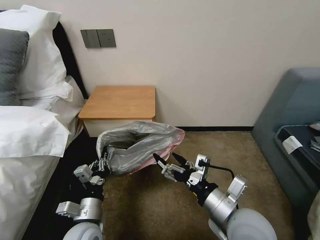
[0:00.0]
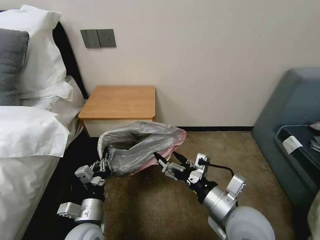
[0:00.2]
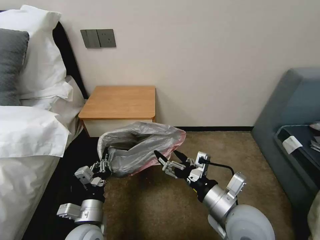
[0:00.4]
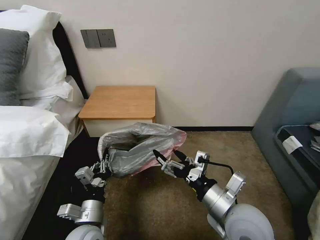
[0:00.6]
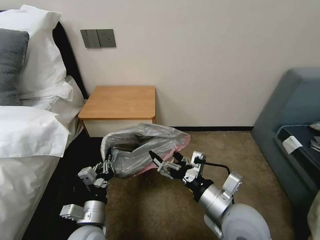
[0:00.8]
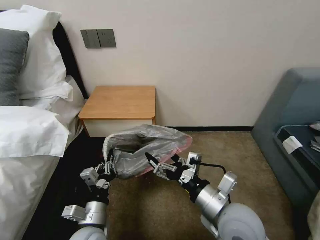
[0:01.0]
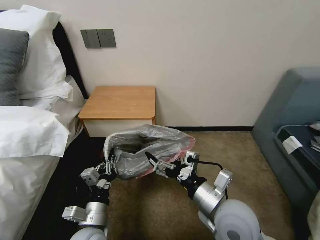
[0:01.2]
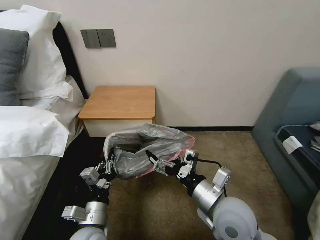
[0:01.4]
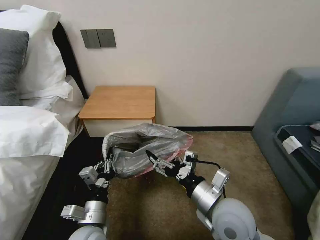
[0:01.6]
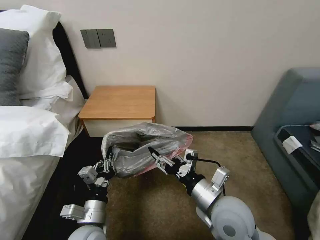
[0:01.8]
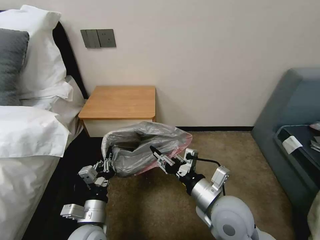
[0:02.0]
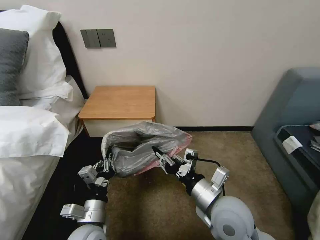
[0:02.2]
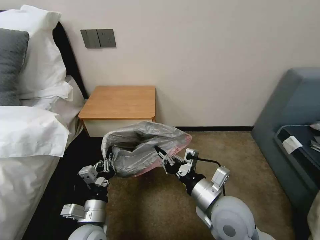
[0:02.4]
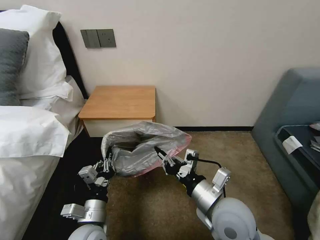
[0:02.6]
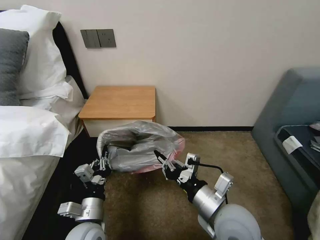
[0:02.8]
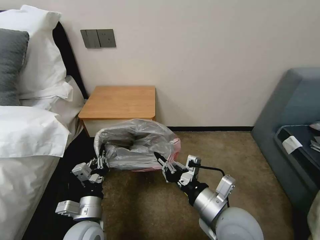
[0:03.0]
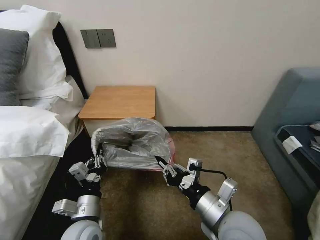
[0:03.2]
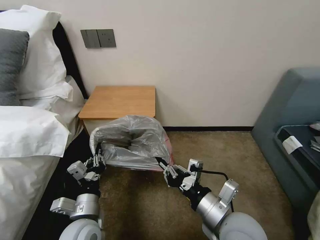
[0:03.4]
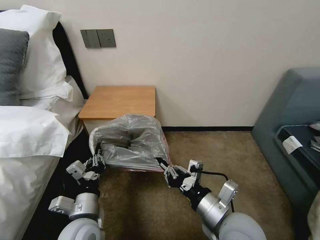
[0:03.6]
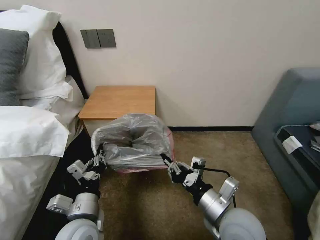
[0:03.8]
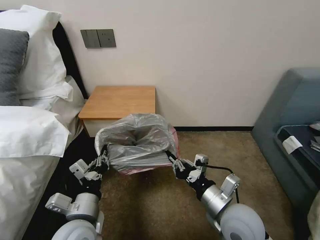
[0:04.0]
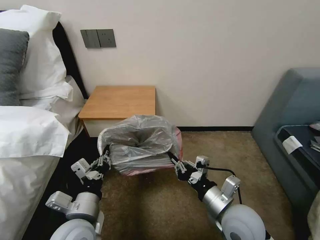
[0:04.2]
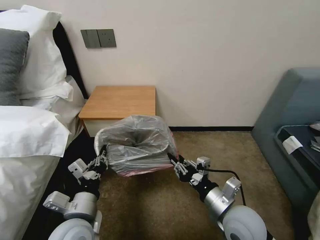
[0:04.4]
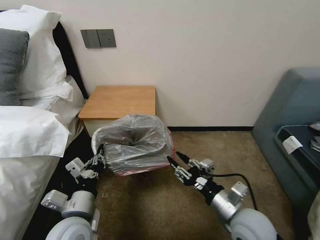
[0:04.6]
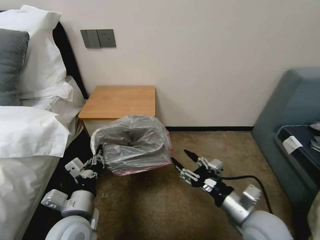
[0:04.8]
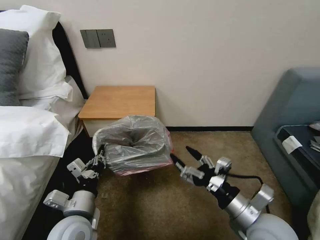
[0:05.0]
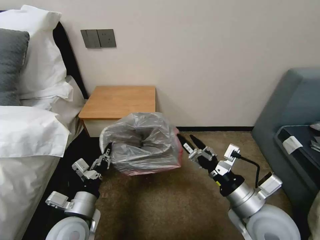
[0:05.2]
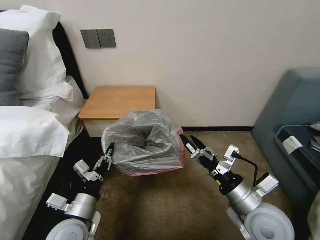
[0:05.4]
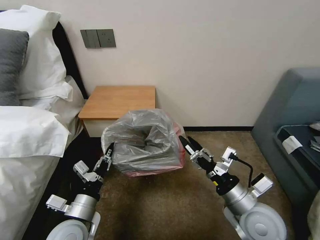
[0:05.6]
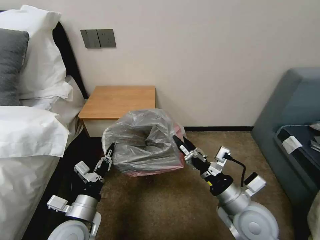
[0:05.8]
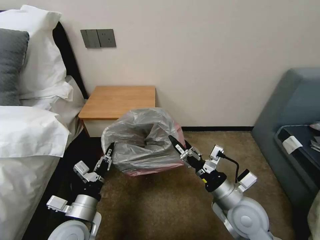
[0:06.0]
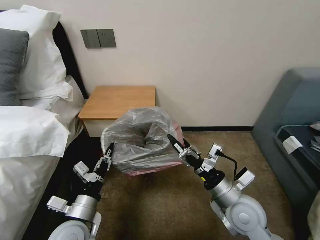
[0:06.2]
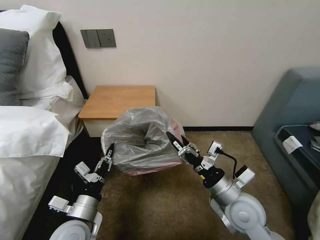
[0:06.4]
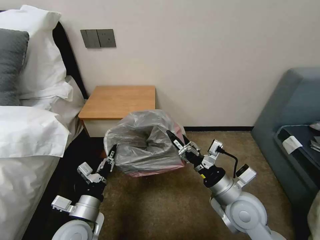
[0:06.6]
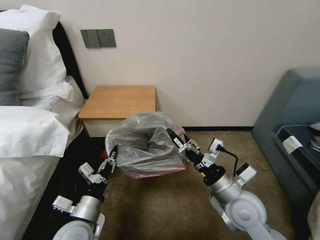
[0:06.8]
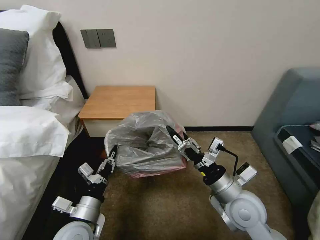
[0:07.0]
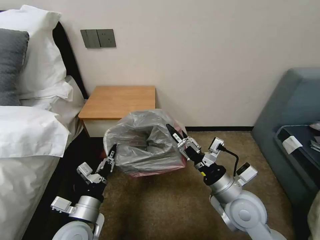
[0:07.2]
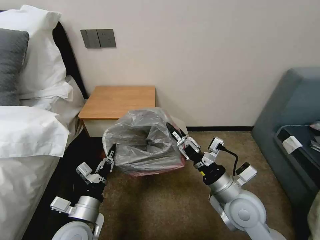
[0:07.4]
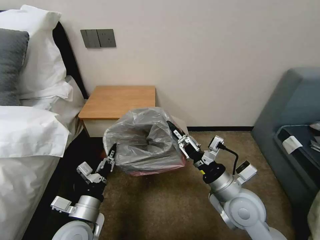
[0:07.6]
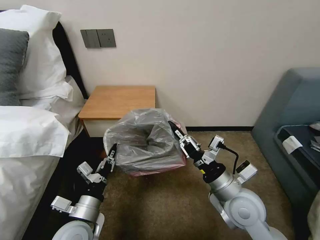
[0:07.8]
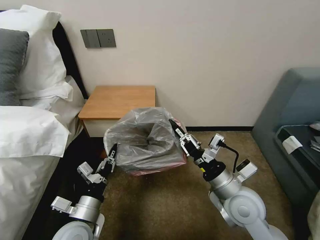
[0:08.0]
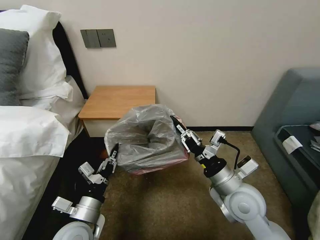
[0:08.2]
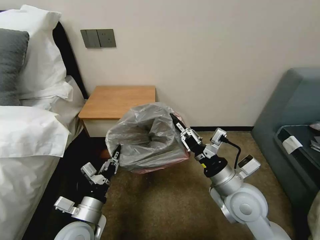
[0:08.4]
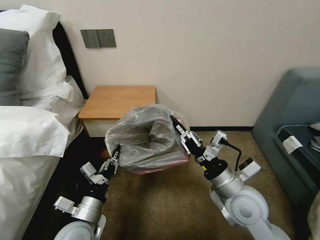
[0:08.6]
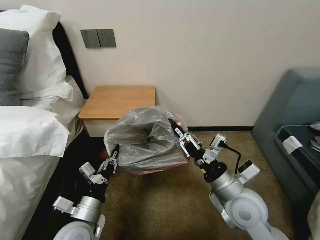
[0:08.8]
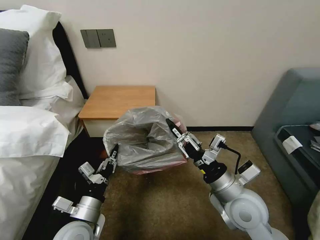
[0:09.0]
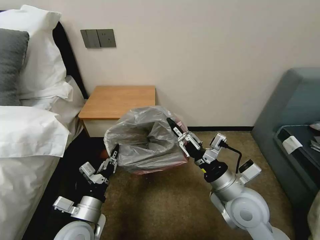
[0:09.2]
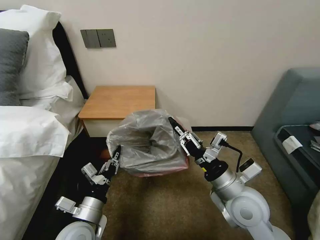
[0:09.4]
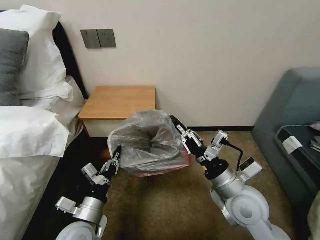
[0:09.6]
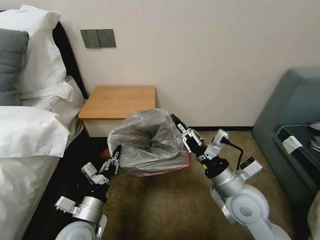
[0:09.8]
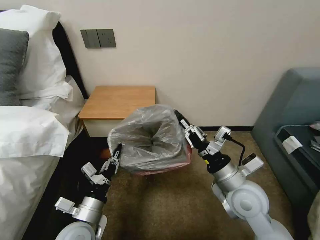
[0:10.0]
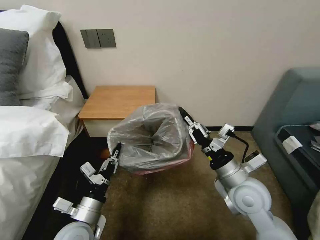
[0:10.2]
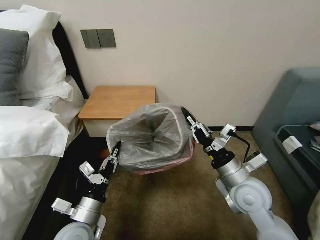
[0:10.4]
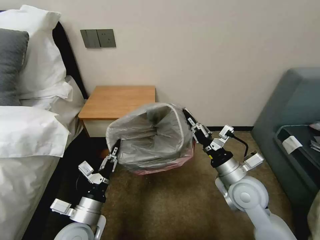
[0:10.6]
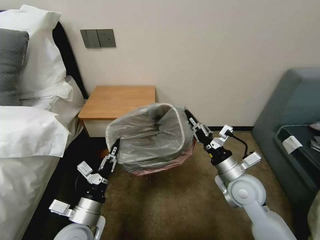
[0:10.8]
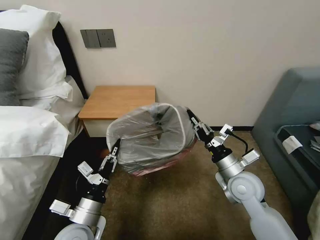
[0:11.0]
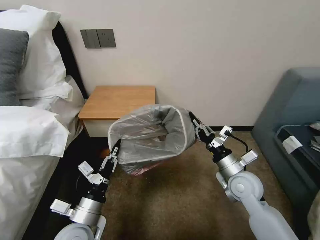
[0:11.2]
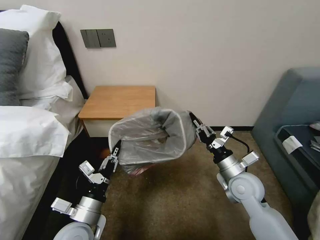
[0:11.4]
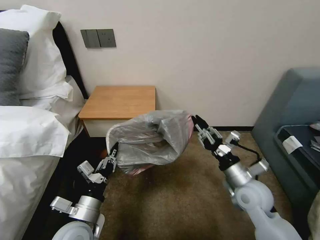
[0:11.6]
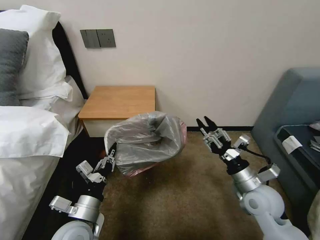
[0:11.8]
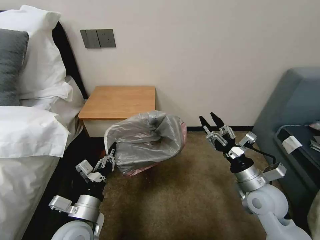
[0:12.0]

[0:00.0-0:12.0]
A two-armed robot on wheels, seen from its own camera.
Task of the whole recording: Pick up the garbage bag from the table and place it over the trash can.
0:00.0 to 0:01.6: The grippers make only small movements.
0:01.6 to 0:03.0: The right gripper closes.
0:03.0 to 0:04.4: The left gripper shifts roughly 5 cm upward. The right gripper ends up some 5 cm from where it was.
0:04.4 to 0:06.0: The right gripper opens its fingers.
0:06.0 to 0:07.6: The right gripper closes.
0:07.6 to 0:10.4: The grippers stay close to where they were, moving slightly.
0:10.4 to 0:12.0: The right gripper goes approximately 5 cm to the right, and opens its fingers.

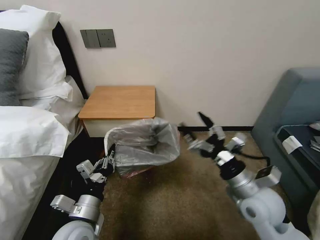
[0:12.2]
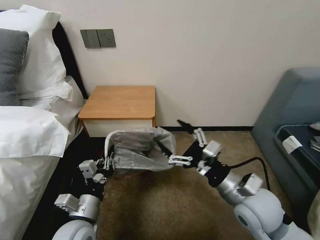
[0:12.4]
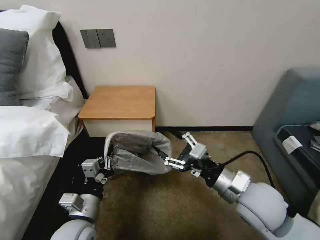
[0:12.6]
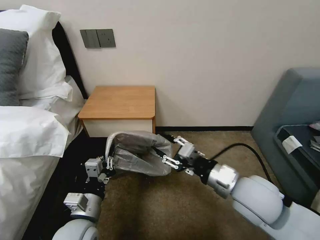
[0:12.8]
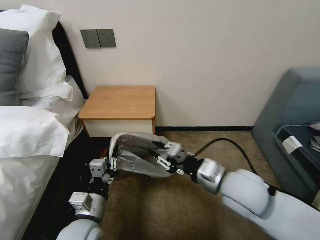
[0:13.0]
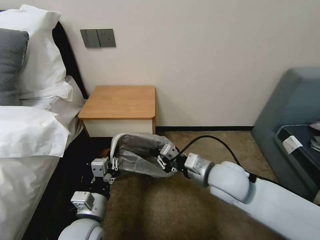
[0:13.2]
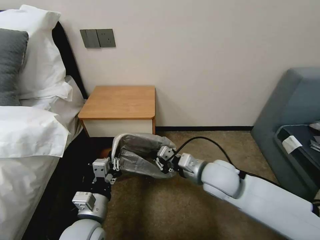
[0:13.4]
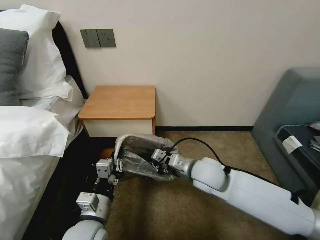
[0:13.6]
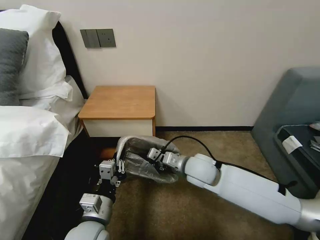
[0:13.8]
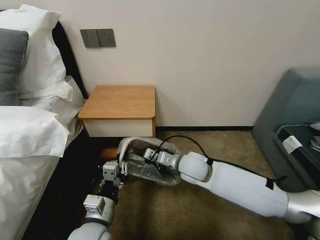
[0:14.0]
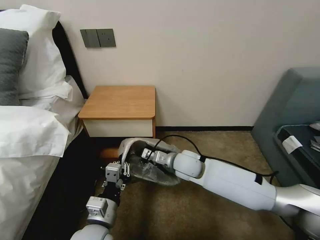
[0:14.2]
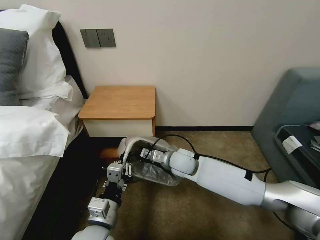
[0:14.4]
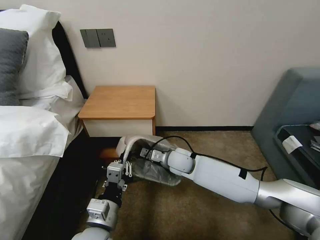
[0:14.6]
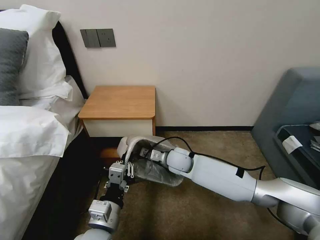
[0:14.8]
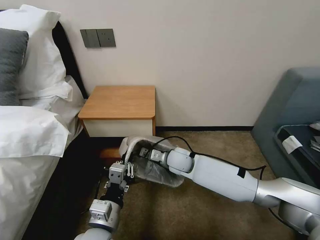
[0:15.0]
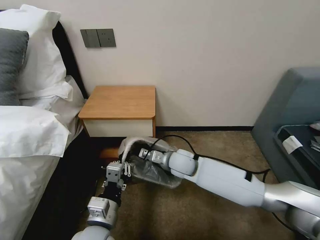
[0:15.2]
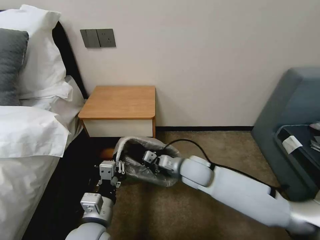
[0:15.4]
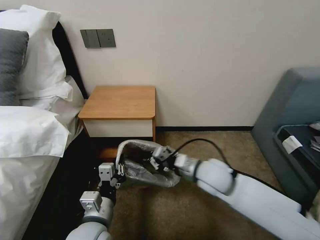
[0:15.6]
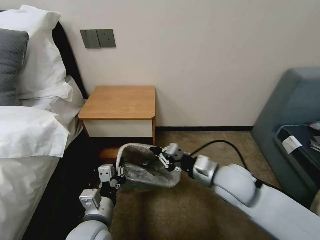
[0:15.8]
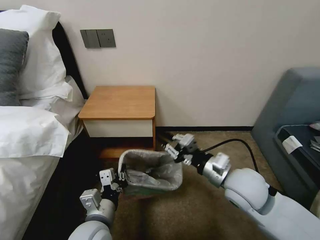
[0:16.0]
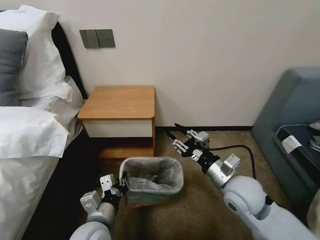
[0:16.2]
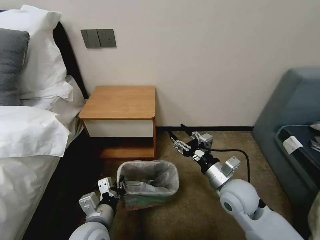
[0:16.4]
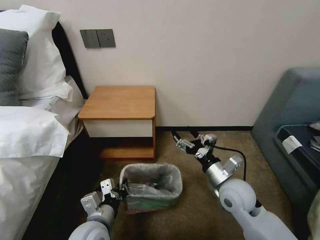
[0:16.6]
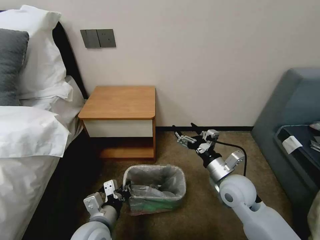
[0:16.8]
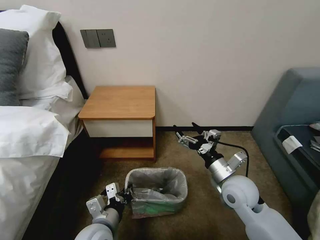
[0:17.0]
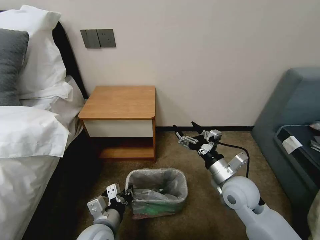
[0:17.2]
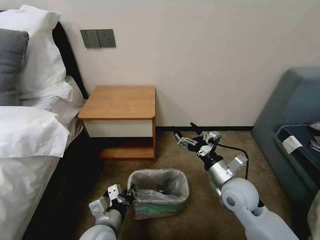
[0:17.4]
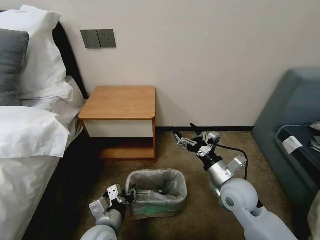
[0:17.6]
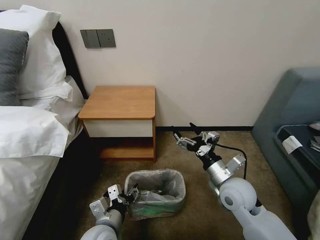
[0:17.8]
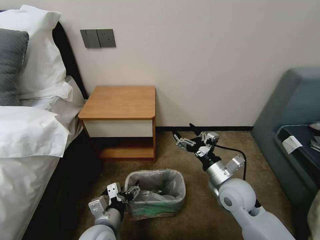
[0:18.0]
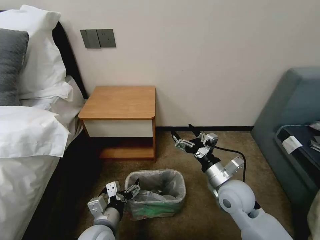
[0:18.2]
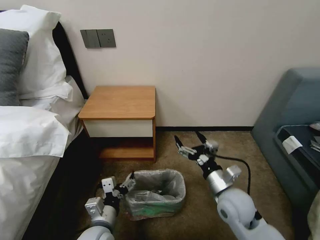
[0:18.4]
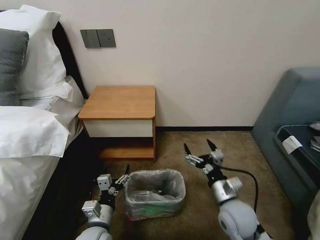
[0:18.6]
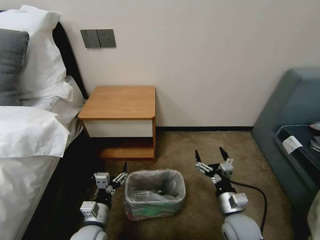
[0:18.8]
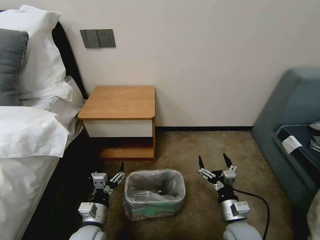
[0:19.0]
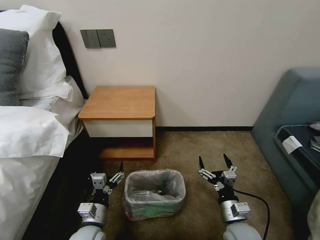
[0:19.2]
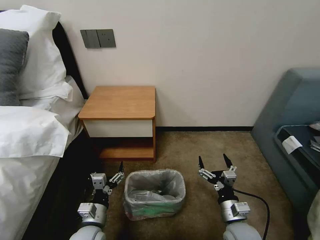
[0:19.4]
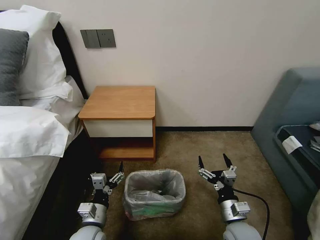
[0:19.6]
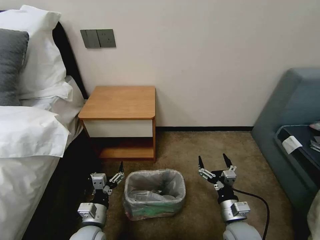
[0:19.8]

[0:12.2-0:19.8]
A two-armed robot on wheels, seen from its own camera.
Task of the whole recording: Pick up the garbage bag from the table and place it over the trash can.
0:12.2 to 0:13.8: The right gripper goes about 15 cm to the left and forward, and closes.
0:15.2 to 0:16.8: The right gripper heads to the right and backward, covering about 15 cm, and opens its fingers.
0:16.8 to 0:18.2: The left gripper opens.
0:18.2 to 0:19.8: The left gripper shifts approximately 5 cm downward. The right gripper is displaced downward and backward by some 15 cm.
